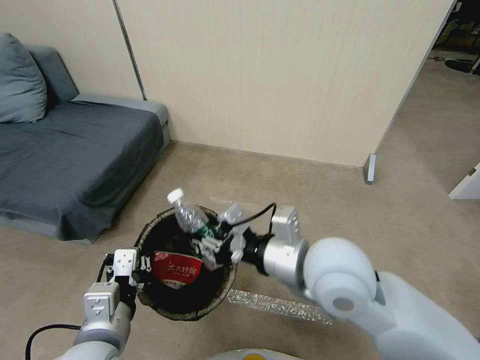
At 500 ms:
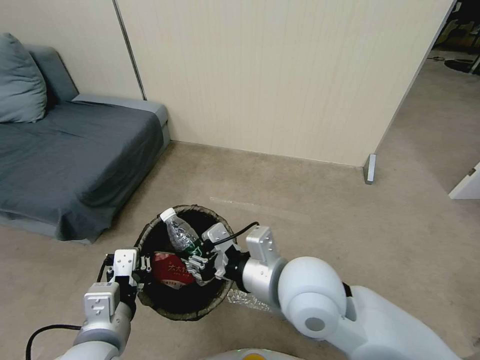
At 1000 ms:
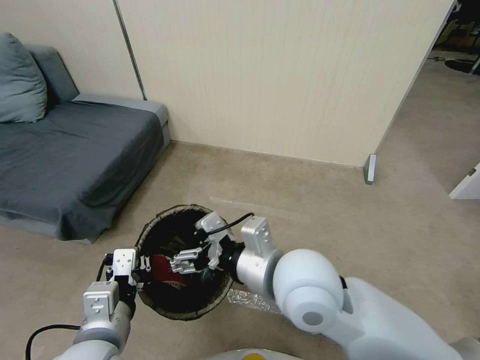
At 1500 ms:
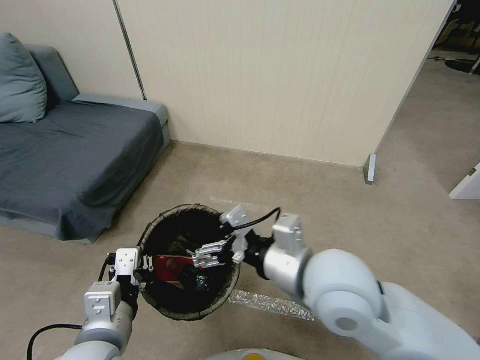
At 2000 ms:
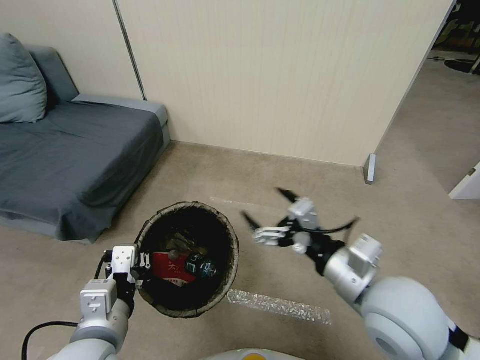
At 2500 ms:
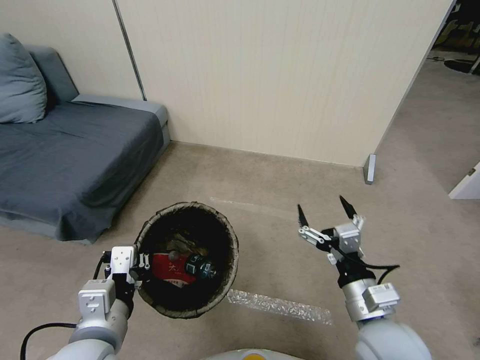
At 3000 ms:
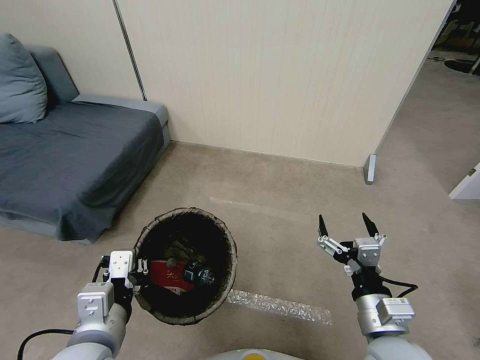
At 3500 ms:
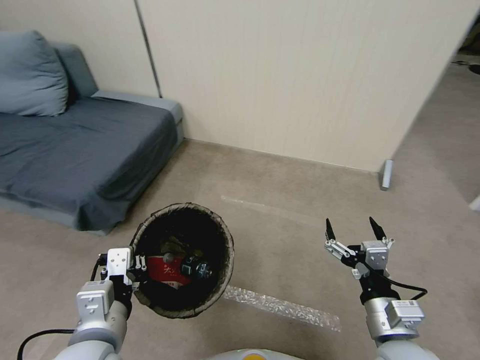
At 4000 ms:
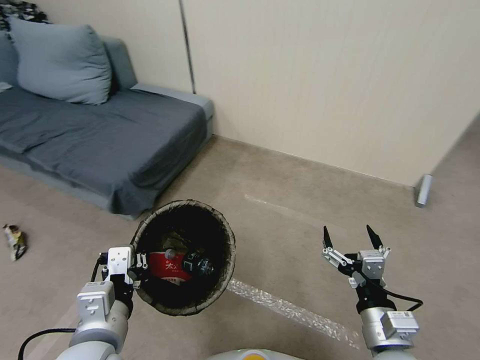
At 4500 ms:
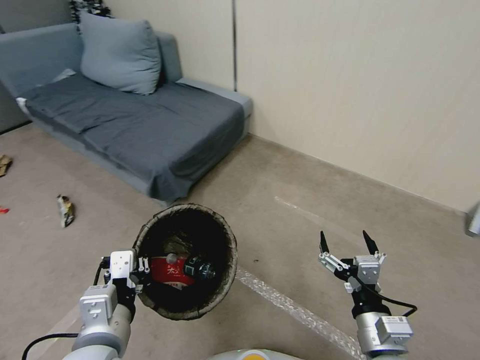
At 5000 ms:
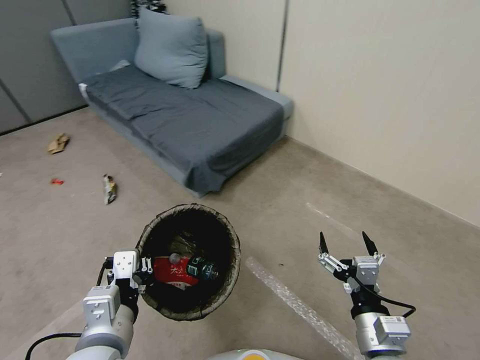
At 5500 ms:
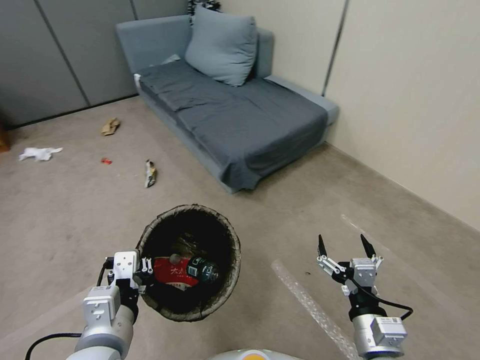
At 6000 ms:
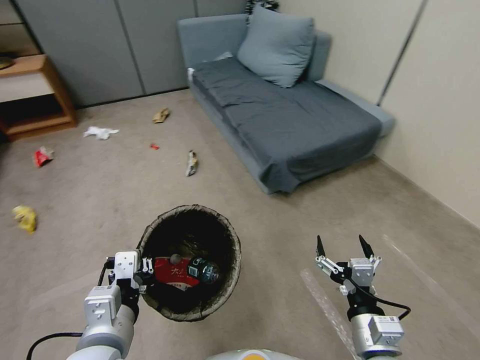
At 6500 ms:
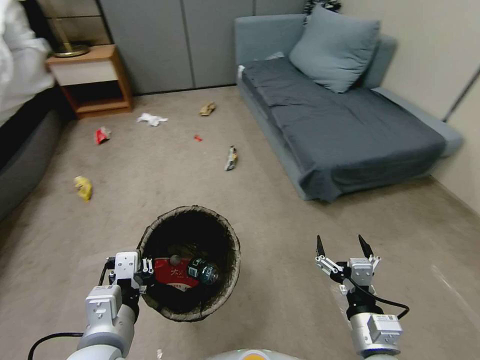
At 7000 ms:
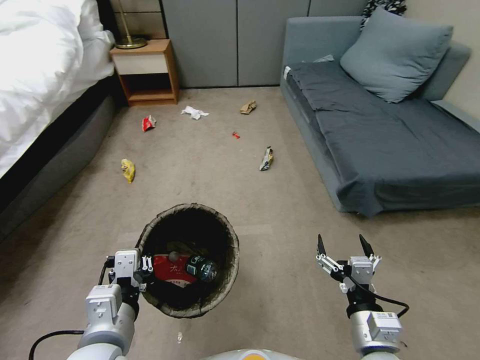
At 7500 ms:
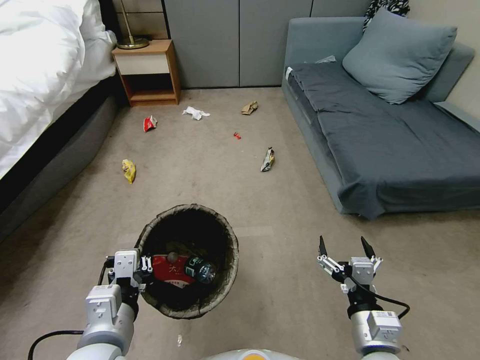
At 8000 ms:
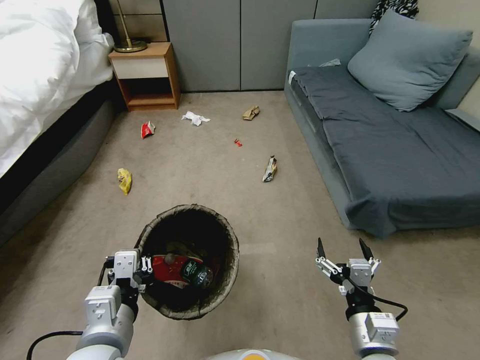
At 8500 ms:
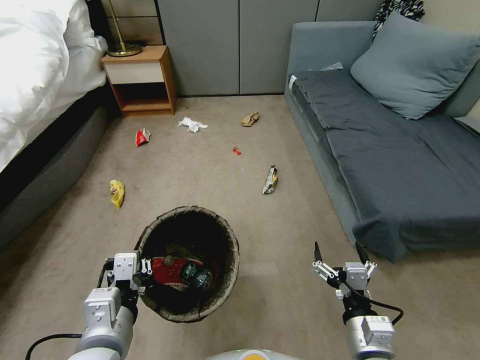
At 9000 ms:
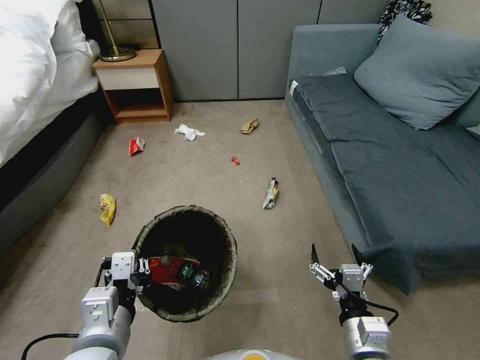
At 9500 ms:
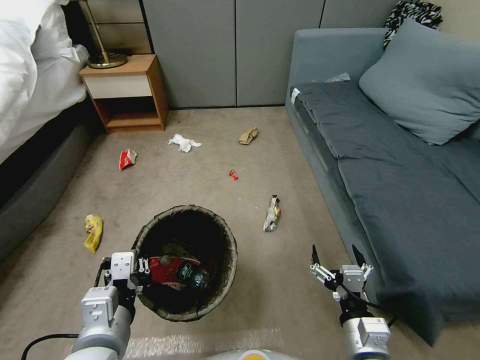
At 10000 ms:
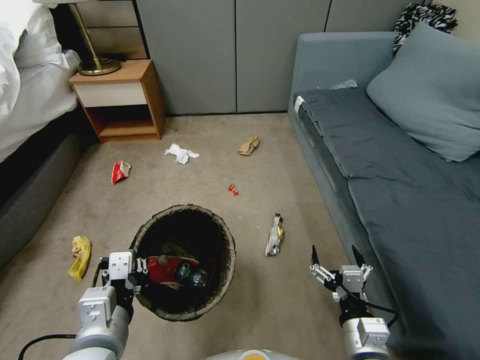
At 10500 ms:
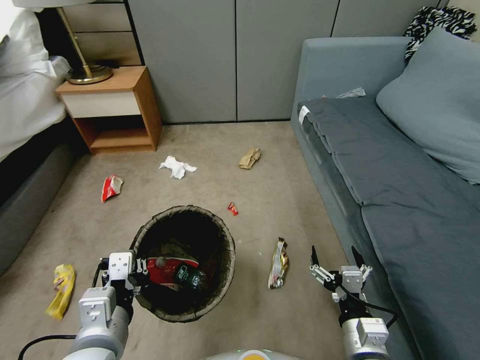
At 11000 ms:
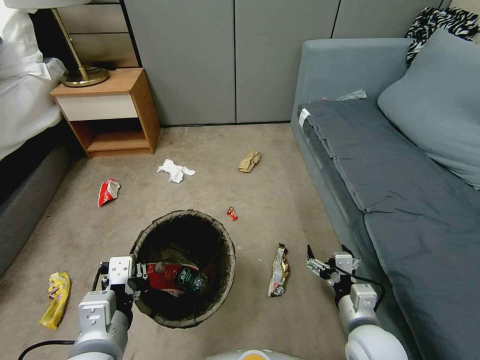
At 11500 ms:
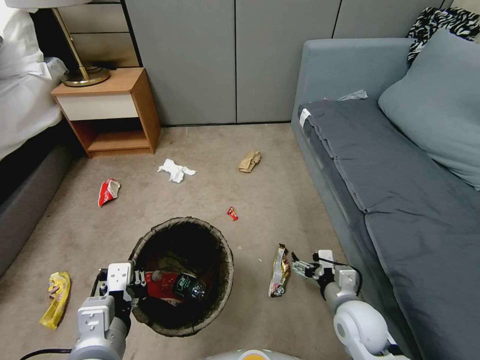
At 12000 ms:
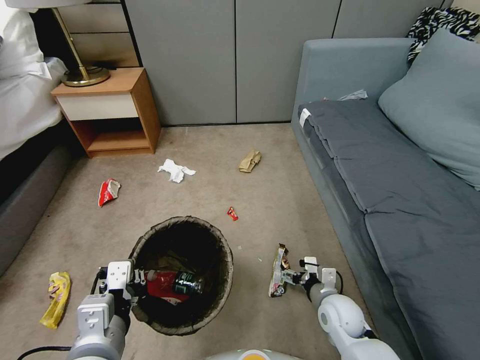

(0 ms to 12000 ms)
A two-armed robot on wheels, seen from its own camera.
Task of the whole recording: Pick up the trash bin, then pick up the garbage from the floor and place it into the trash bin.
0 ms - 2000 ms: The right gripper heads to the right, covering roughly 10 cm, and opens up.
2000 ms - 4000 ms: The right gripper moves downward and backward, some 15 cm.
10000 ms - 12000 ms: The right gripper goes roughly 15 cm forward and downward.

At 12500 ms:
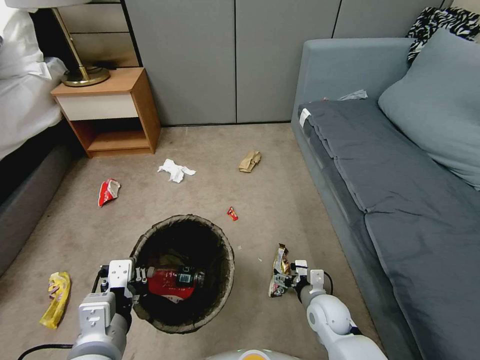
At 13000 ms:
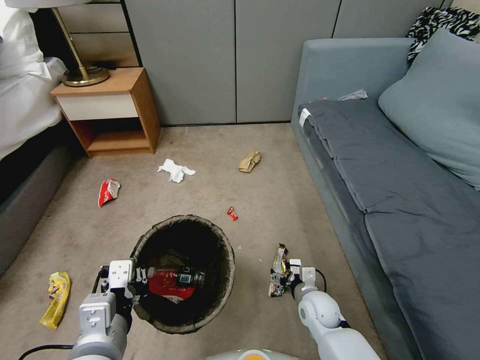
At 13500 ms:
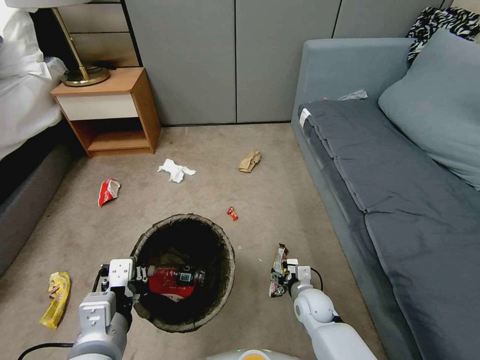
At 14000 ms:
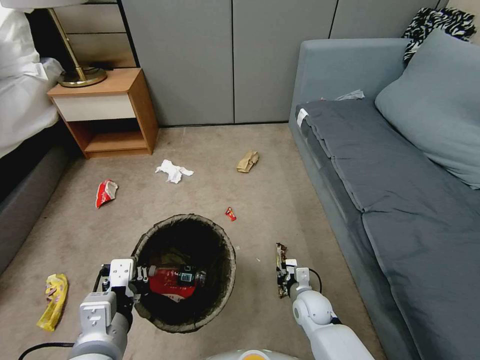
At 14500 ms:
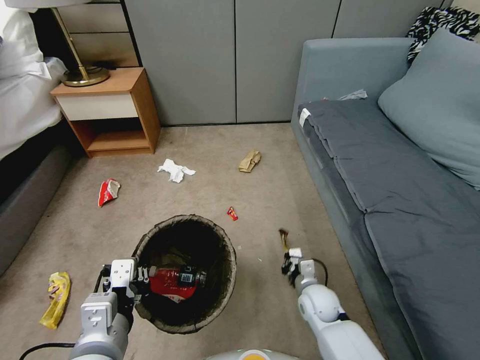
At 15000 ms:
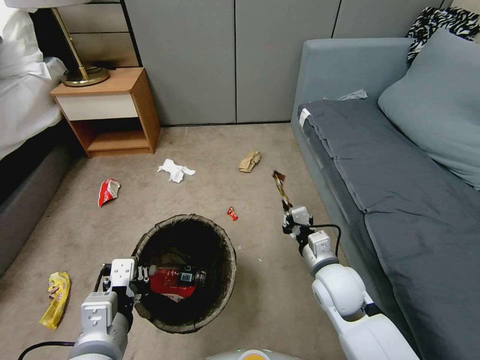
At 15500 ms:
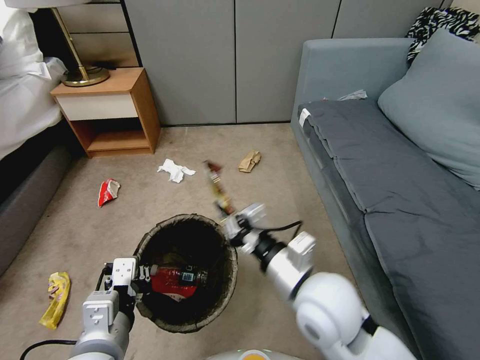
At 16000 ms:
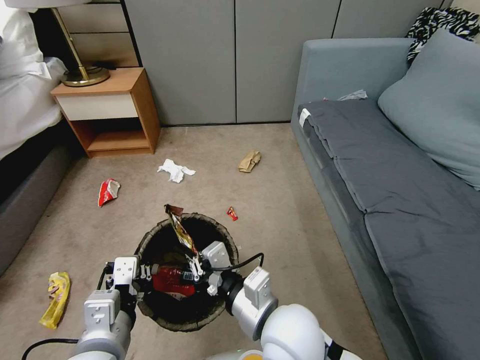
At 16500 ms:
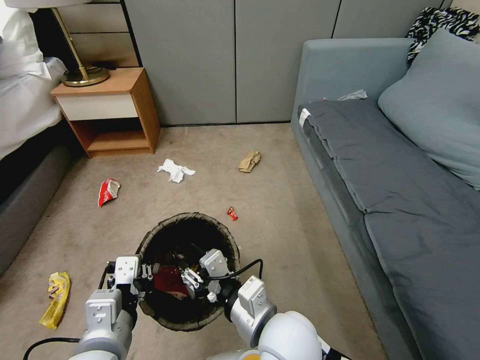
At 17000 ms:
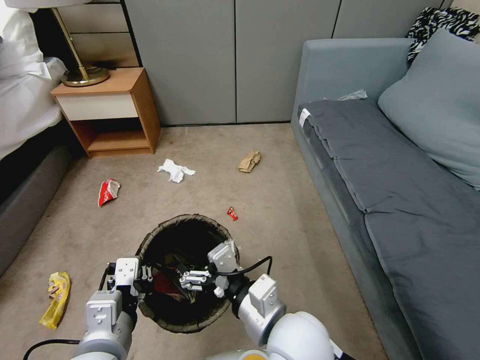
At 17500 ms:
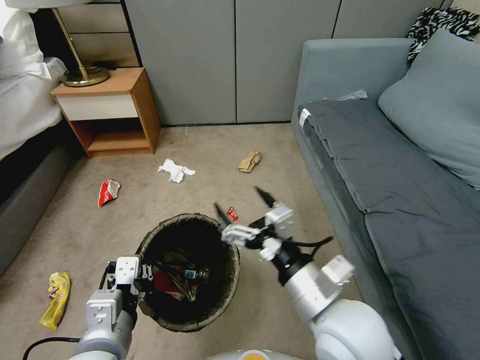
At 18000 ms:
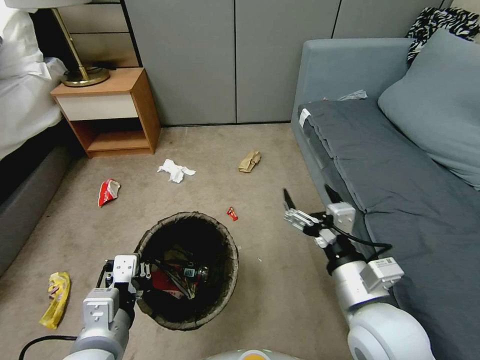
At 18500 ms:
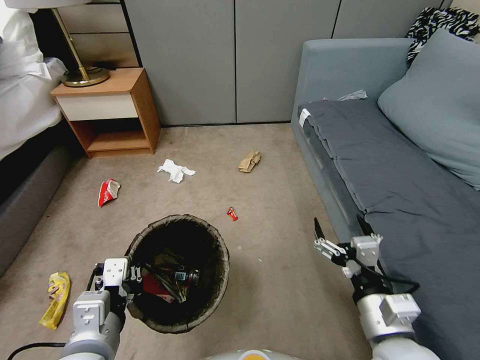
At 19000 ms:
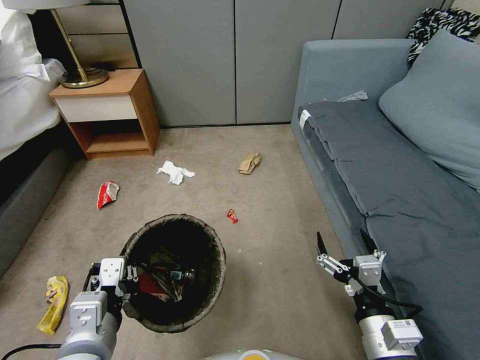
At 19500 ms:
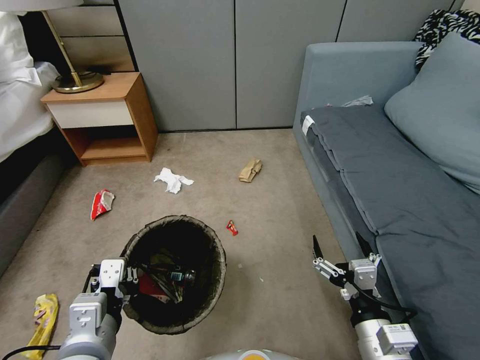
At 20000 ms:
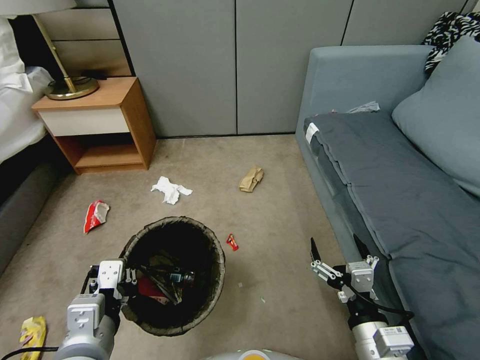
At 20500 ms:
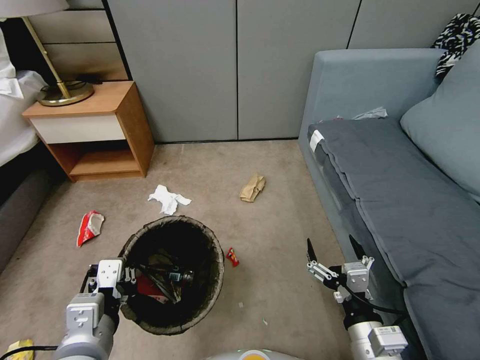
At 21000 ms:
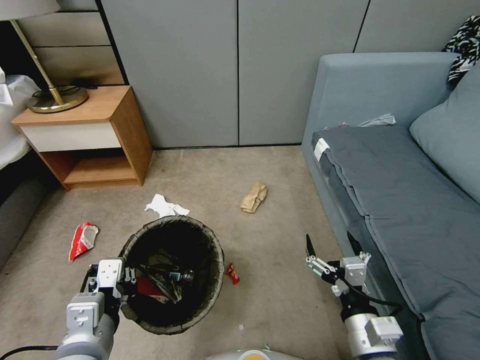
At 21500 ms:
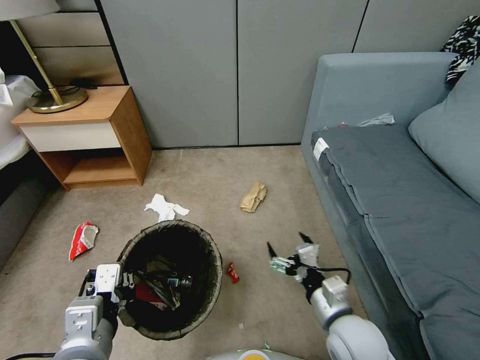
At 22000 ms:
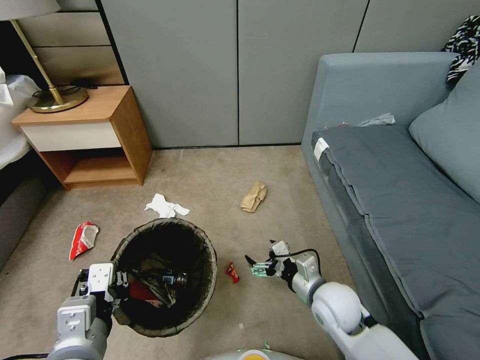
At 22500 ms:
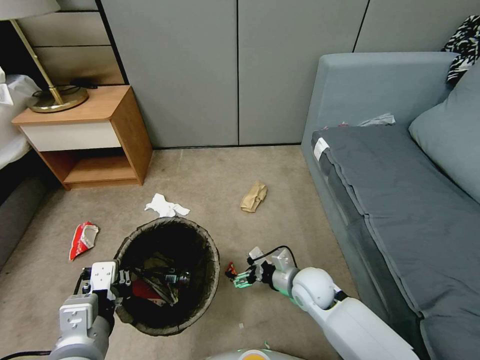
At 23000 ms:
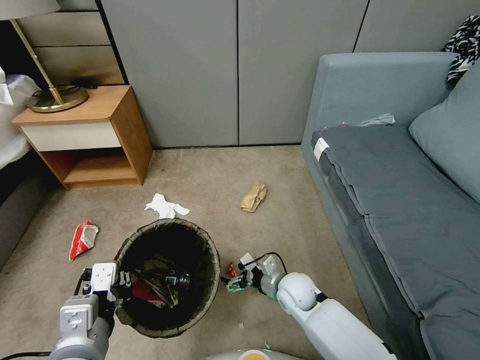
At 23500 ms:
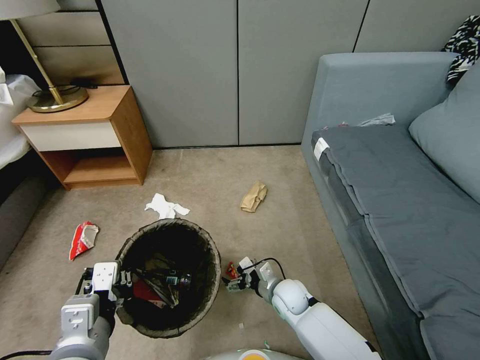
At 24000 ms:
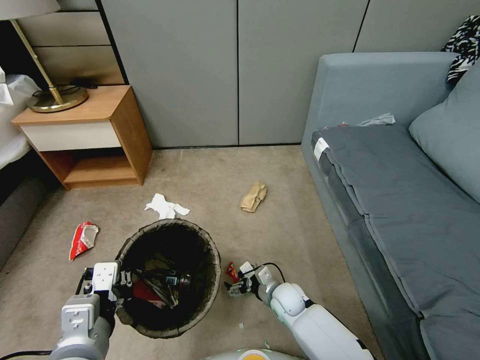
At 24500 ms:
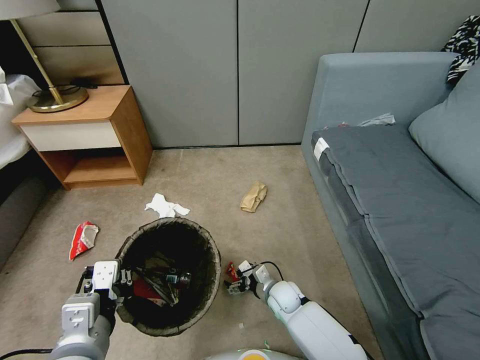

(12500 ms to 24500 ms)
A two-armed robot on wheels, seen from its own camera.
Task of the whole recording: Pick up the trash bin, then pick up the garbage from the floor and place it into the trash bin.
12500 ms - 14500 ms: The right gripper closes up.
14500 ms - 16500 ms: The right gripper shifts roughly 30 cm upward, to the left and backward, and opens.
16500 ms - 18500 ms: The right gripper is displaced to the right by about 20 cm, and opens.
18500 ms - 20500 ms: The right gripper ends up some 5 cm from where it was.
20500 ms - 22500 ms: The right gripper heads forward and downward, covering approximately 20 cm.
22500 ms - 24500 ms: The right gripper moves downward, approximately 15 cm.

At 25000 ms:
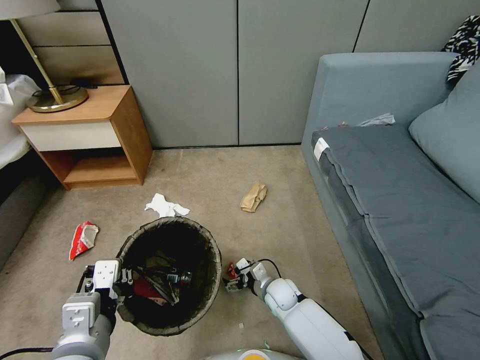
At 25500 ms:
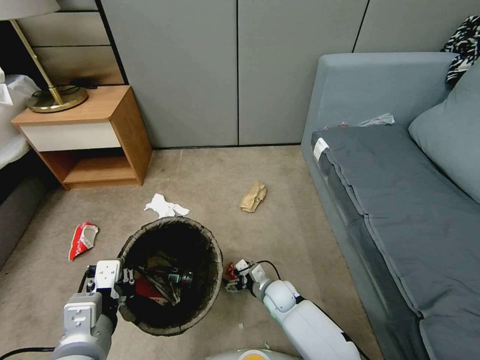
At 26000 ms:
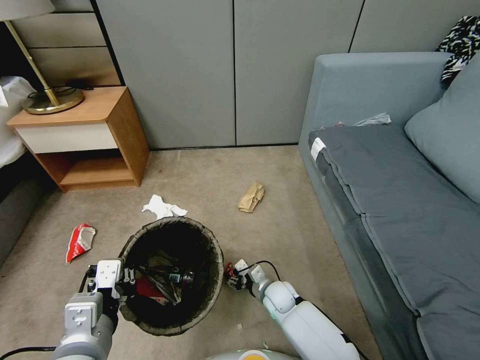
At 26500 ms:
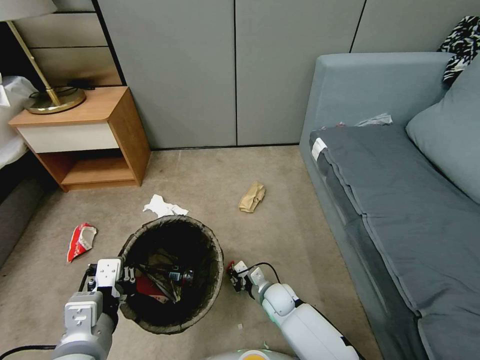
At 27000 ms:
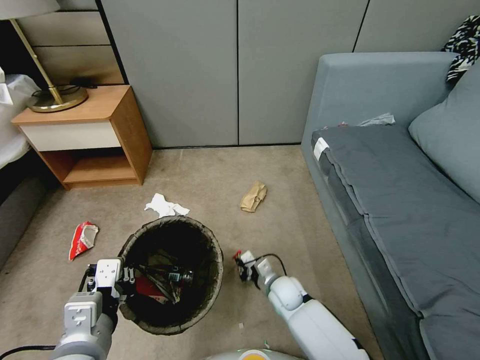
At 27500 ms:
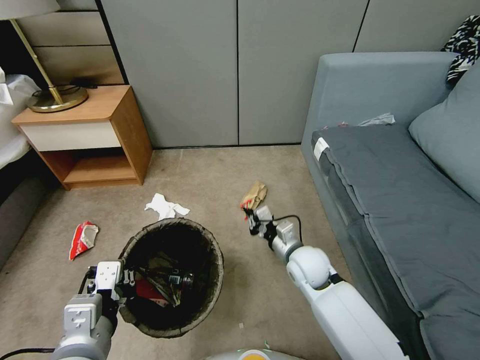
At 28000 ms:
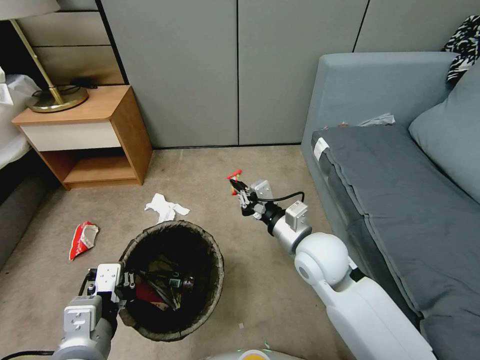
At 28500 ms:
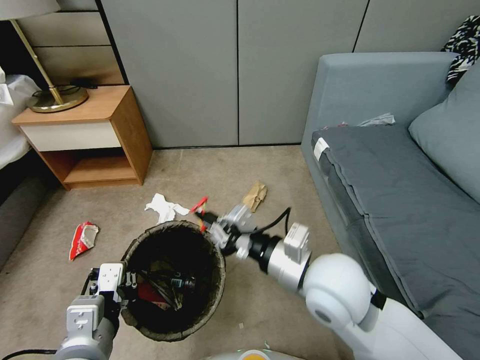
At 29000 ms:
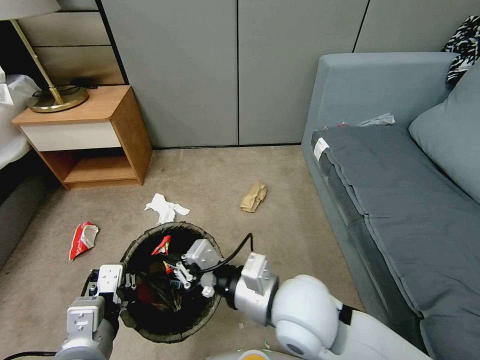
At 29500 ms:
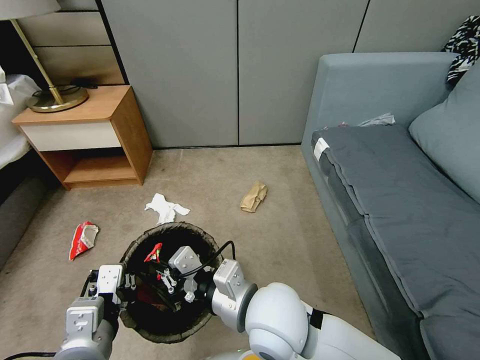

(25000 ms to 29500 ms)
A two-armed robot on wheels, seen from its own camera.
Task of the whole recording: Pick up the trash bin, then pick up the garbage from the floor and place it into the trash bin.
25000 ms - 27000 ms: The right gripper closes.
27000 ms - 29500 ms: The right gripper heads upward and backward, covering some 30 cm.